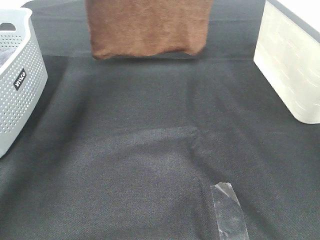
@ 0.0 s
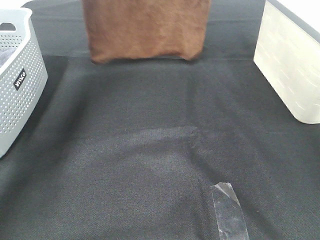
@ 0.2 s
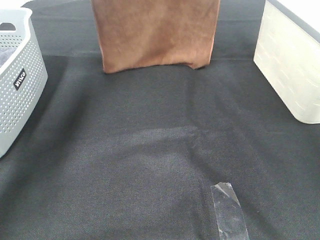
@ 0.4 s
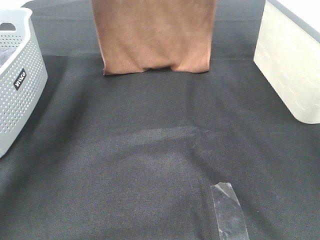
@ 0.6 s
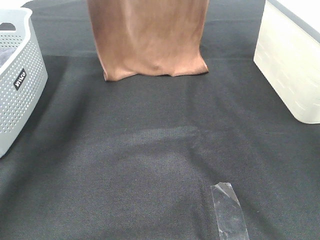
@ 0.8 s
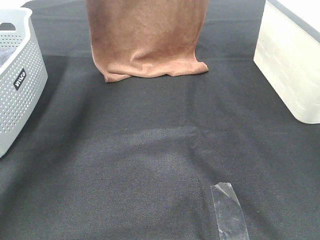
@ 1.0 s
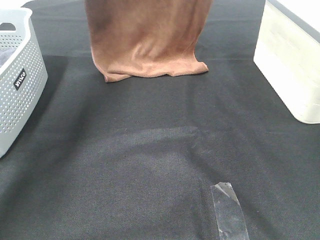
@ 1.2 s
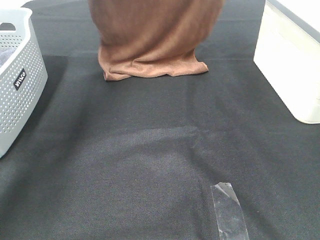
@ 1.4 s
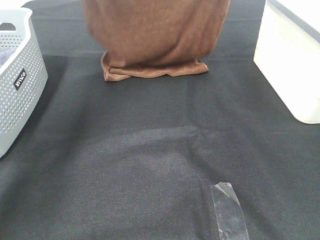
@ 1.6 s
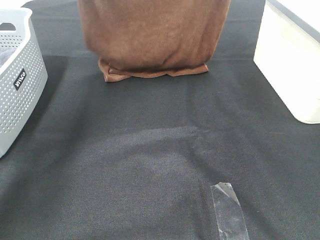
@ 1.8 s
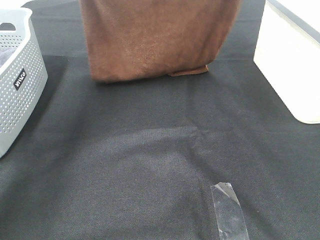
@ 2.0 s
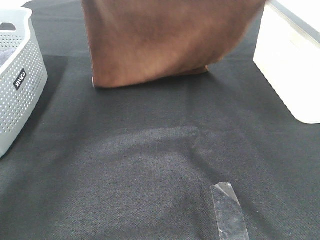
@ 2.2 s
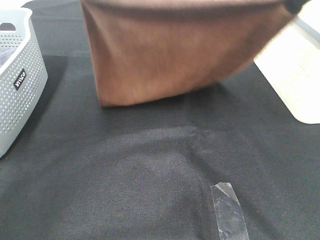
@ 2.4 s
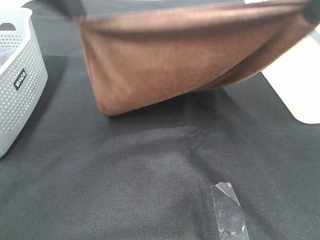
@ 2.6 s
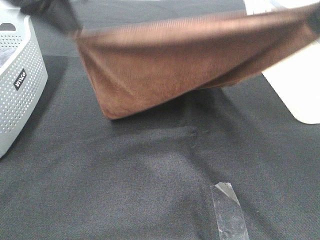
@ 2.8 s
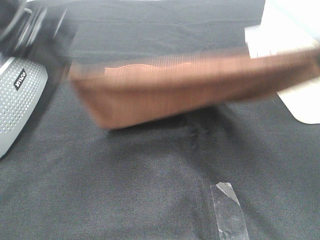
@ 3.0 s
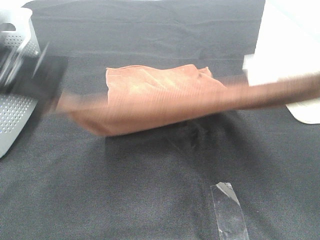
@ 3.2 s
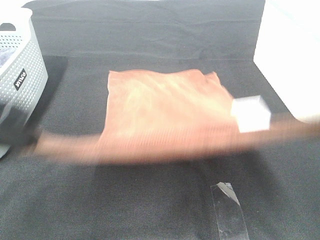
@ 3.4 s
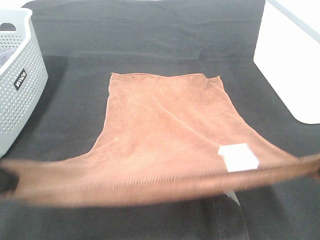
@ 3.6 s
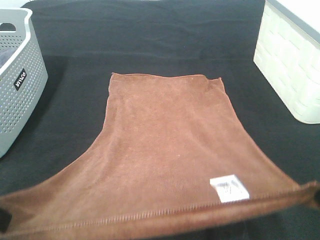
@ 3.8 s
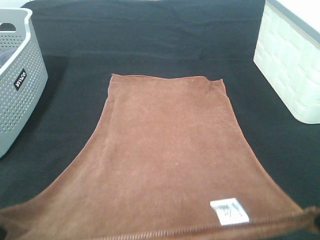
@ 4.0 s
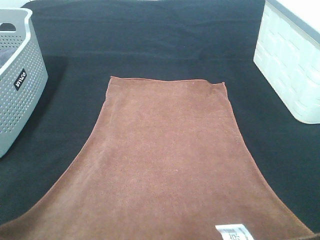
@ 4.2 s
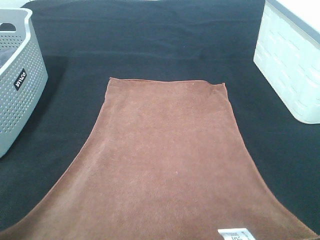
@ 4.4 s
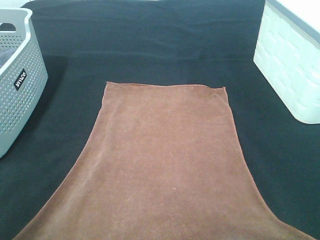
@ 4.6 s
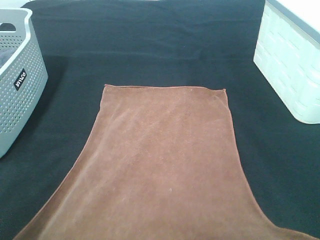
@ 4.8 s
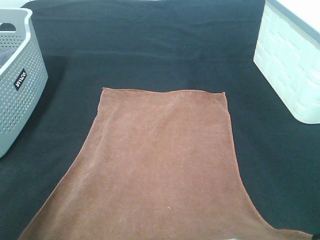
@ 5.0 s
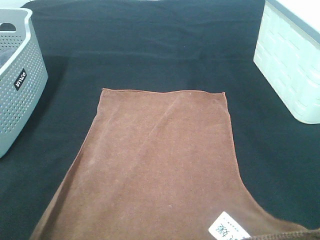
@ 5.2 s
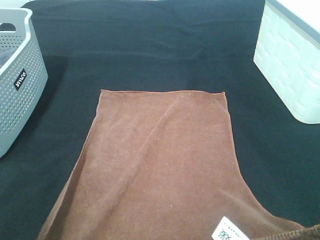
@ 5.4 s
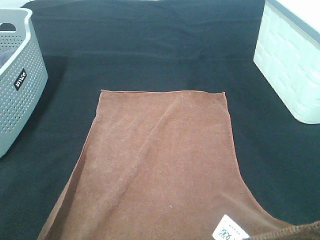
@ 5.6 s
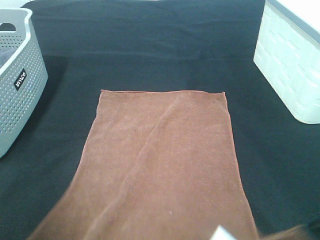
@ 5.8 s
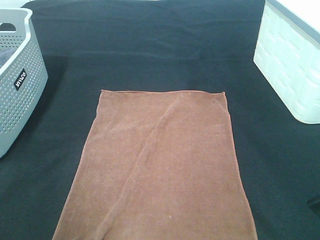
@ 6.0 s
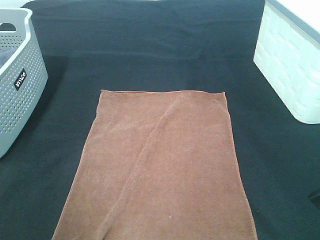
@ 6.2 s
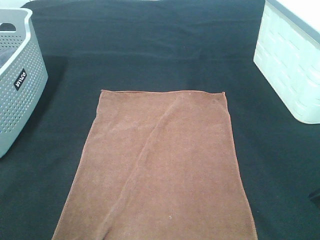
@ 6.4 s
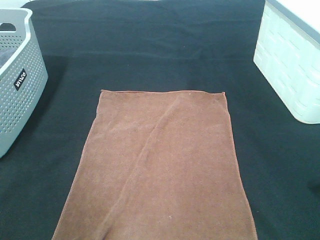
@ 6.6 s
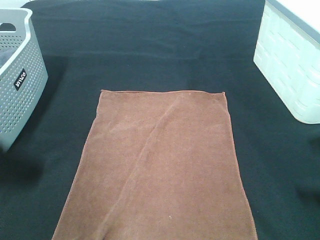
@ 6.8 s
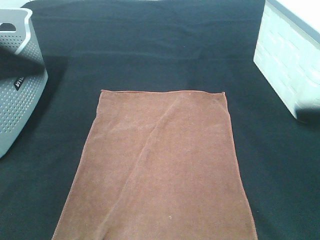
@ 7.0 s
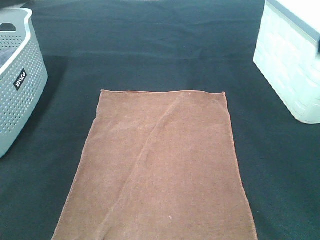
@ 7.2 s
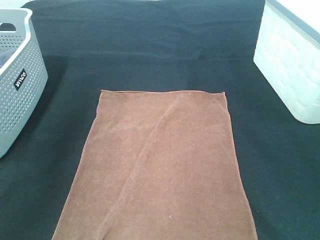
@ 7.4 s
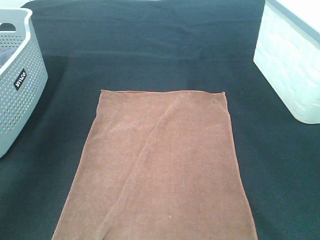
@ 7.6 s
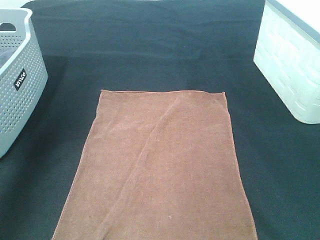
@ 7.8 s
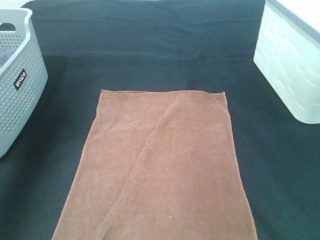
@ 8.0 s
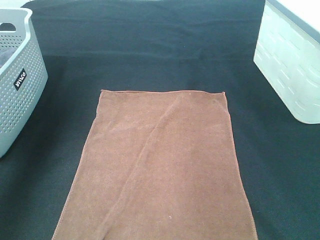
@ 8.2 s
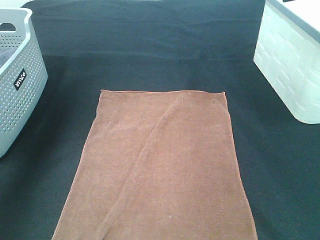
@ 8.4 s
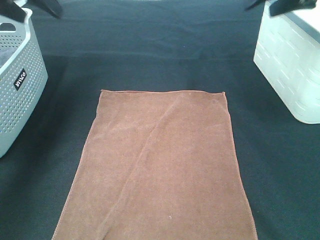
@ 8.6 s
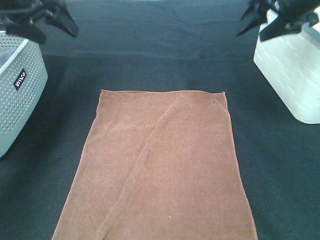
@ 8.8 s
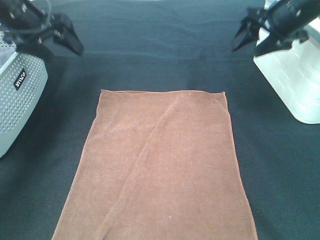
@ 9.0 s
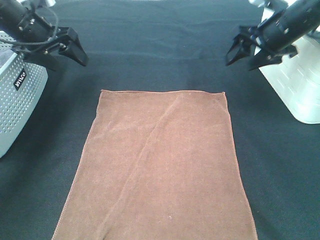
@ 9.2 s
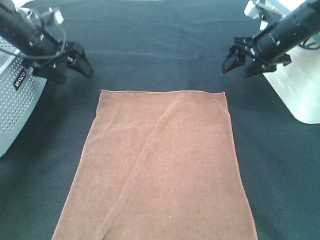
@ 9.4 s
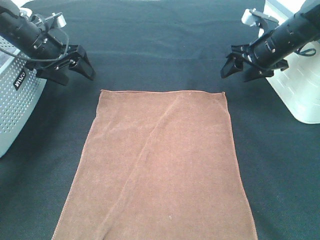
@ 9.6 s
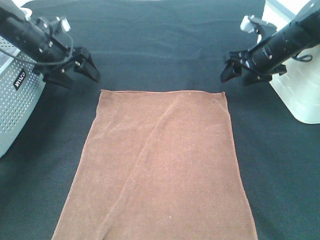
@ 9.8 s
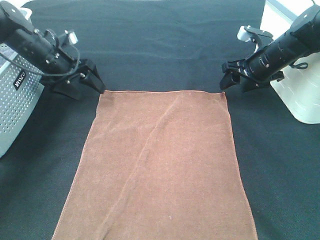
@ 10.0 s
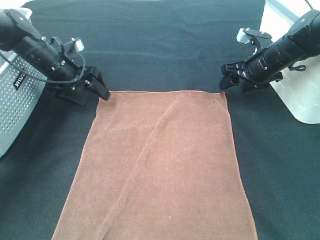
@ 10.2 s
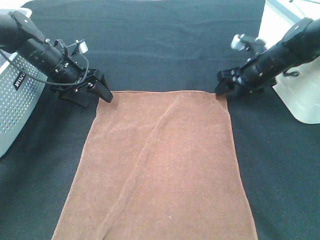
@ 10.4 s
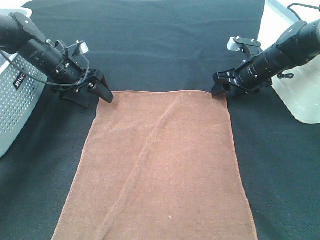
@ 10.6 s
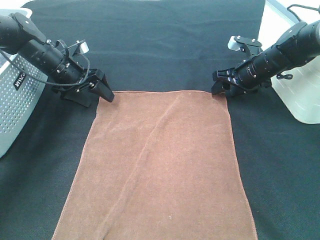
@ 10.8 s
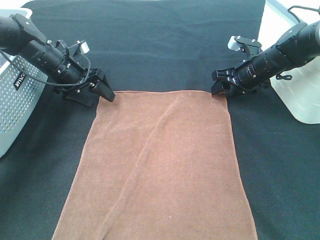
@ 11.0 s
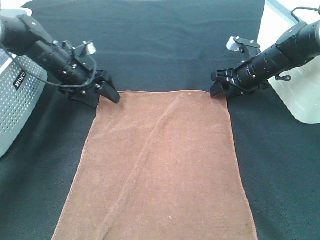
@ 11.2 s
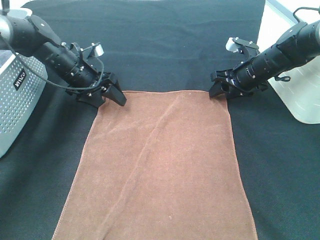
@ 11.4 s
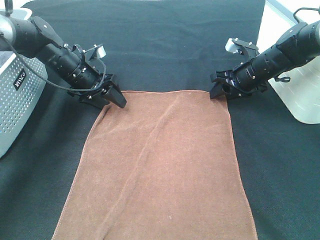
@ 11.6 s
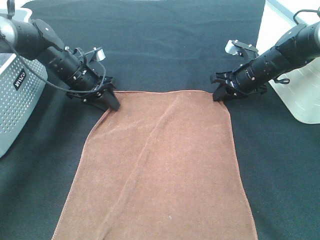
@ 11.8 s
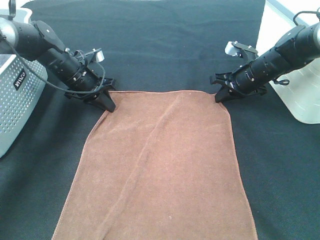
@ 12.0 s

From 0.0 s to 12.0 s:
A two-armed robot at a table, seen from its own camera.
Task of the whole recording: Remove the towel and place it.
Step, from 2.0 s to 10.0 s: Left hand:adjust the brown towel.
Step, from 2.0 s to 10.0 s: Right hand:adjust the brown towel.
From 0.0 s to 1.6 s: The left gripper travels downward by some 5 cm. Meanwhile the right gripper shifts about 5 cm backward.
From 1.6 s to 3.0 s: The two grippers go about 25 cm backward.
From 3.0 s to 4.4 s: Both grippers move backward and downward, approximately 15 cm.
From 4.4 s to 6.0 s: The left gripper opens up, while the right gripper opens its fingers.
From 6.0 s to 7.6 s: The left gripper shifts some 25 cm forward and upward.
From 7.6 s to 9.0 s: The right gripper moves forward, about 25 cm. Meanwhile the left gripper goes approximately 25 cm forward and downward.
From 9.0 s to 10.4 s: Both grippers move downward, roughly 15 cm.
From 10.4 s to 12.0 s: The left gripper closes up. The right gripper closes.

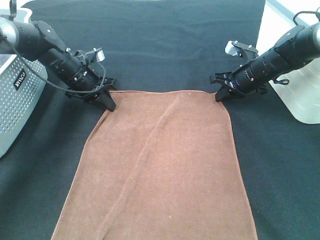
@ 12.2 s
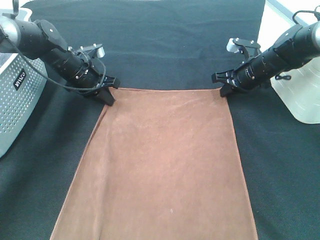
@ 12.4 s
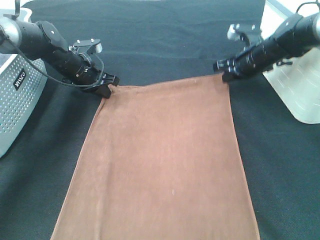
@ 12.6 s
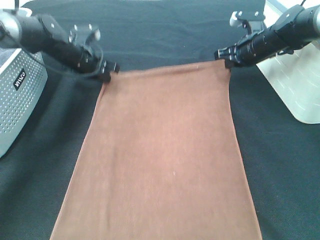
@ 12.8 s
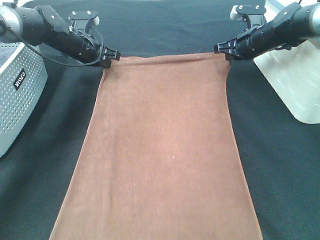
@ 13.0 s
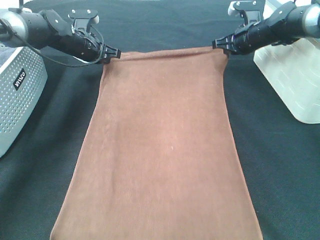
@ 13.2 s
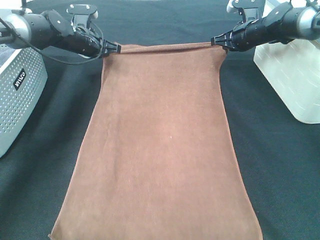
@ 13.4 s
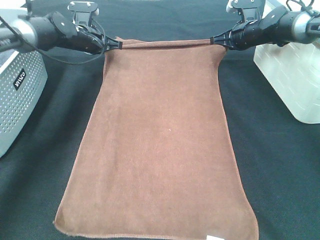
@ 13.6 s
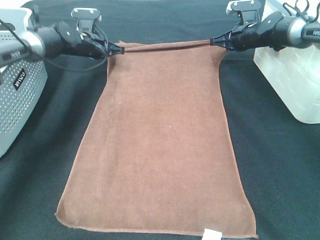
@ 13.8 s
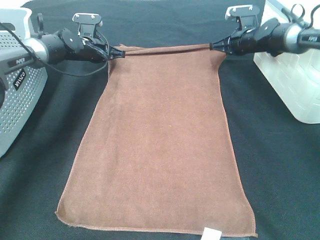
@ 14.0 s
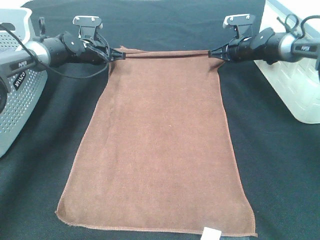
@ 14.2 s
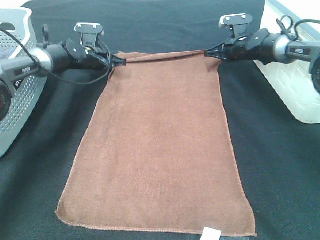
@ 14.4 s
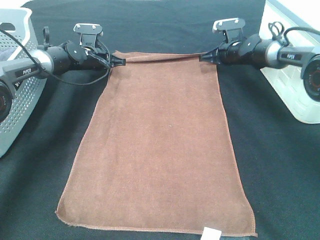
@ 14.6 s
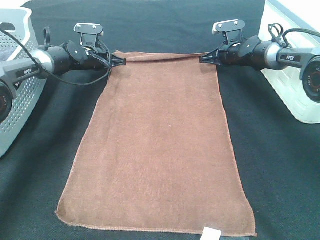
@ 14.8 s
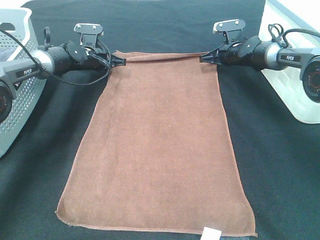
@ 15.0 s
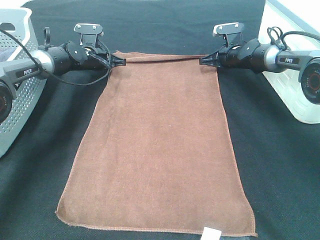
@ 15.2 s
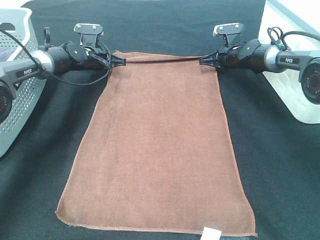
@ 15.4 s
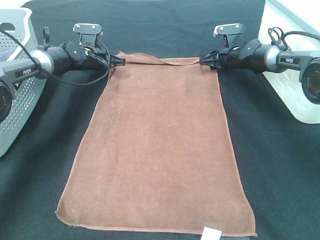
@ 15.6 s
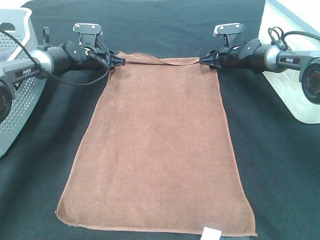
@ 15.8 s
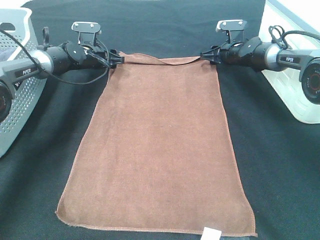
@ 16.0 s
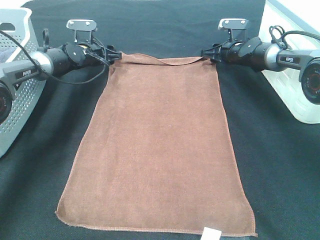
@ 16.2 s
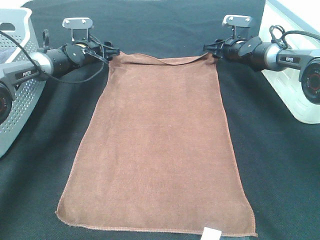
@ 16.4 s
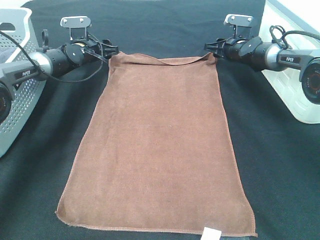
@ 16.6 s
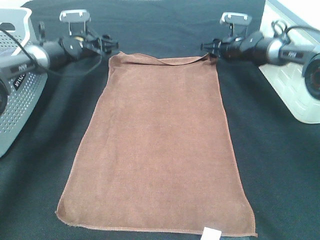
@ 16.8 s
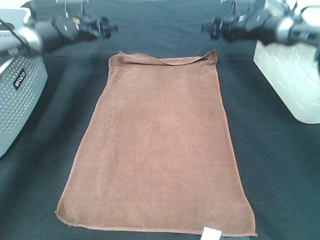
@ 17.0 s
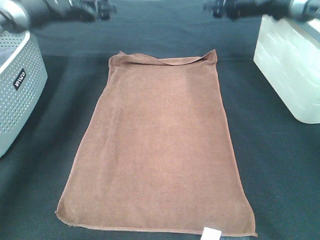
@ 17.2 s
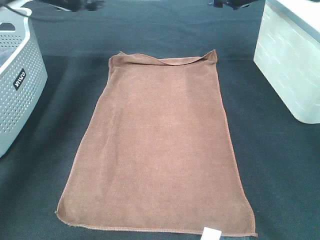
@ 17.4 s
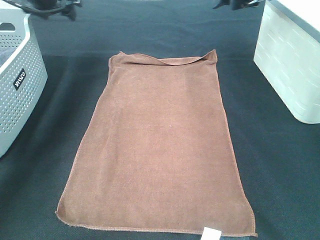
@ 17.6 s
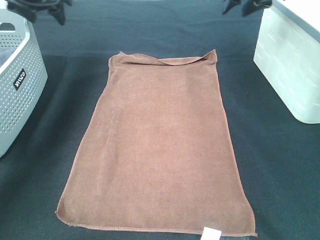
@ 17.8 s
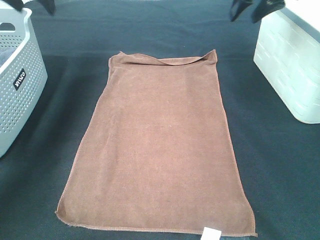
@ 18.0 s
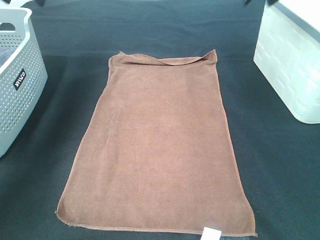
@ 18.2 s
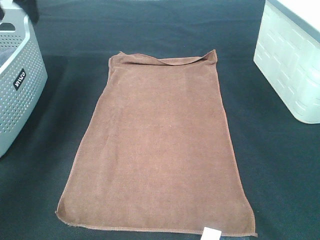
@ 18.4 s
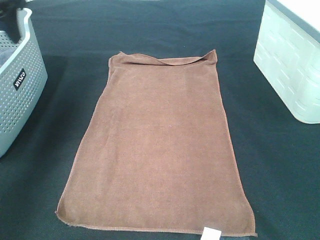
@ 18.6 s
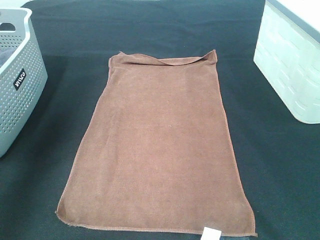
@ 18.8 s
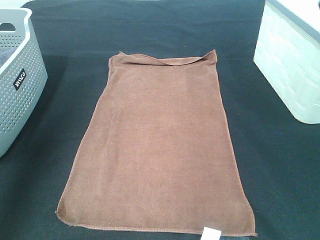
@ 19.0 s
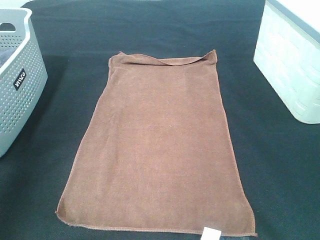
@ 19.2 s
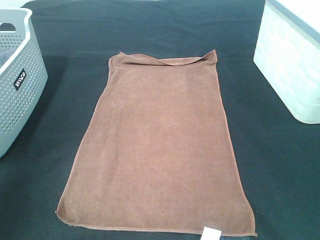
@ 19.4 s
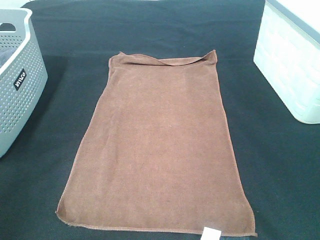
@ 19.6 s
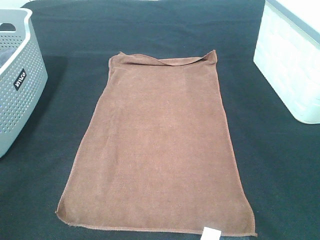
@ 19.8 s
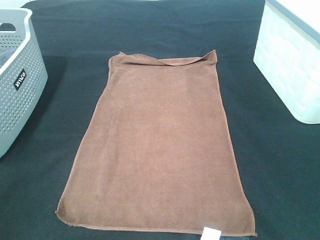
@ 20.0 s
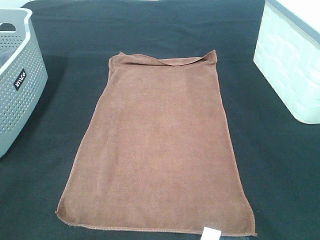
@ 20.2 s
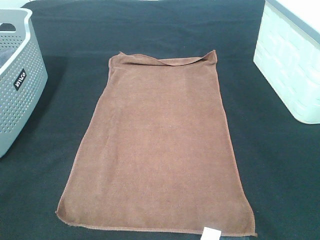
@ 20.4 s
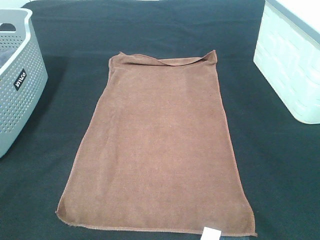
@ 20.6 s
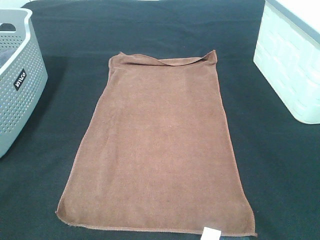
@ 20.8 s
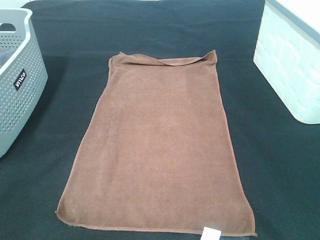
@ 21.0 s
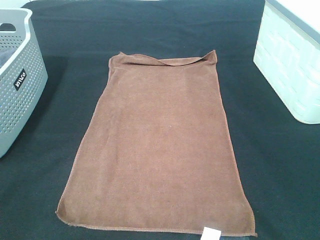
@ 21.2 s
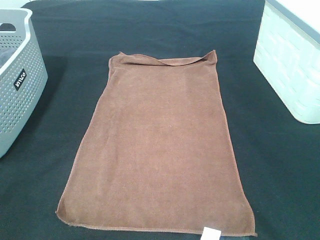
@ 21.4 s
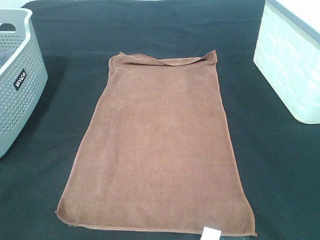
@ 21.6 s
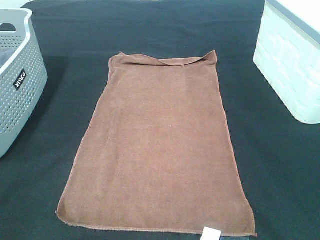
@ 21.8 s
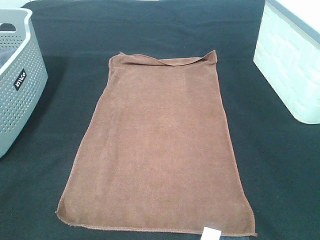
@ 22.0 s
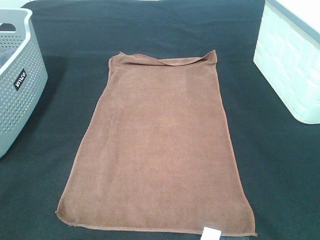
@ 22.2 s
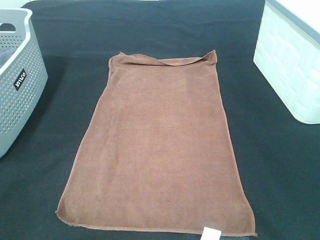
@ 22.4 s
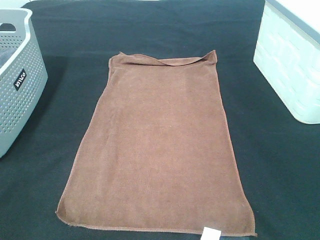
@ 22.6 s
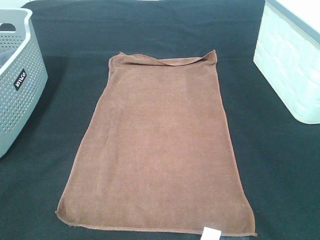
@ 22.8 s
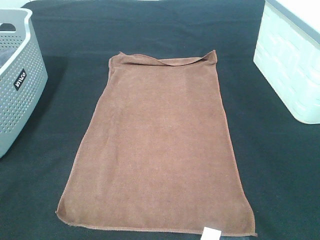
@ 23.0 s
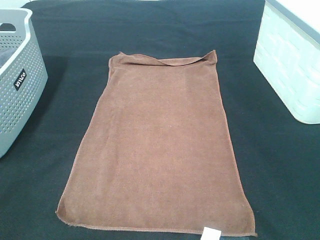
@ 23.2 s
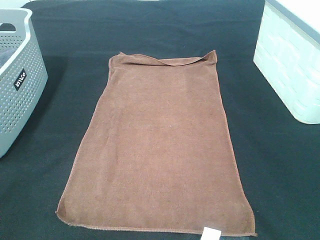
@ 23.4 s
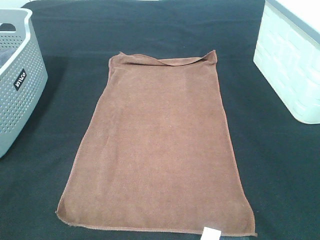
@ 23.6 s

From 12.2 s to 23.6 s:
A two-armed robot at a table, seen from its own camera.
Task of the whole recording: Remove the towel and place it.
From 12.2 s to 13.6 s: Both grippers travel together forward, some 10 cm.
From 13.6 s to 15.0 s: Both grippers move downward, approximately 5 cm.
From 15.0 s to 16.4 s: The left gripper opens, while the right gripper opens up.
From 16.4 s to 17.8 s: The right gripper travels upward and backward by roughly 25 cm; the left gripper is displaced upward by approximately 20 cm.
From 17.8 s to 19.4 s: Both grippers travel together backward, about 35 cm.
